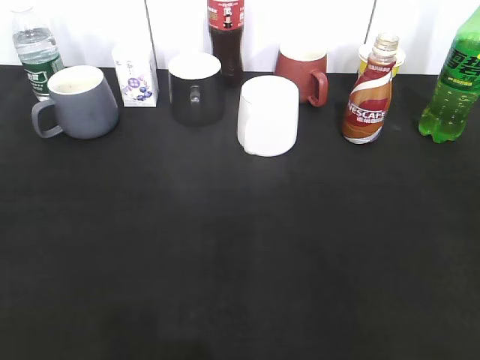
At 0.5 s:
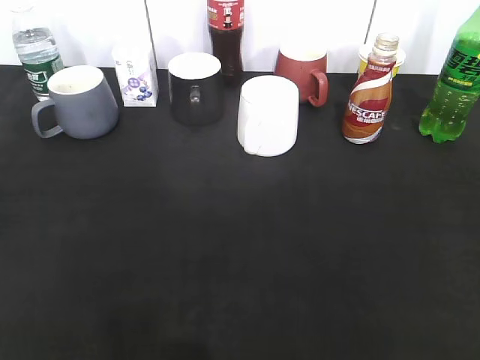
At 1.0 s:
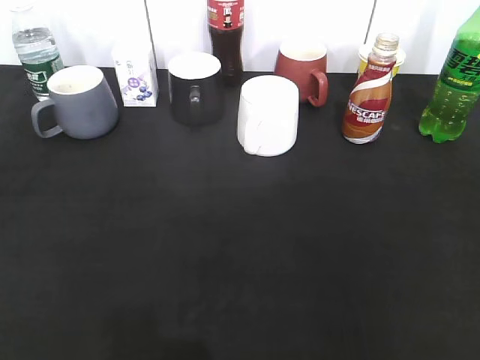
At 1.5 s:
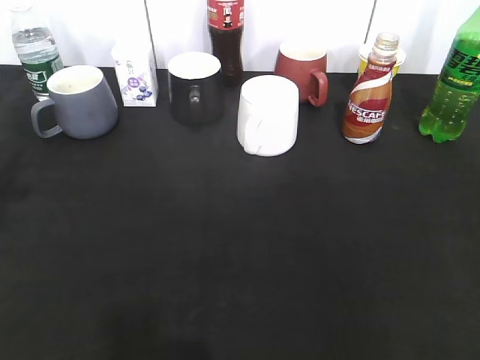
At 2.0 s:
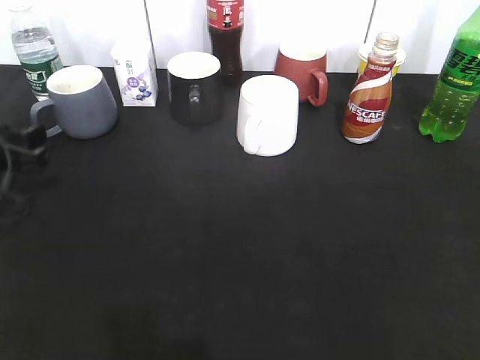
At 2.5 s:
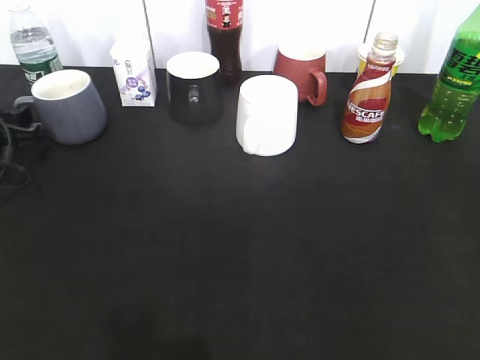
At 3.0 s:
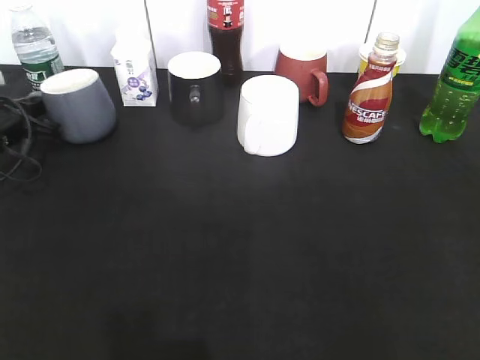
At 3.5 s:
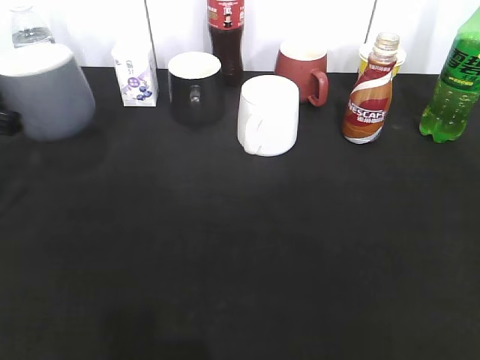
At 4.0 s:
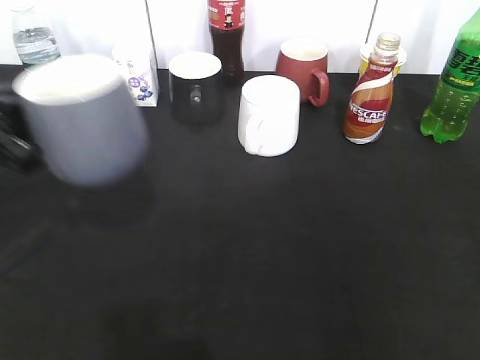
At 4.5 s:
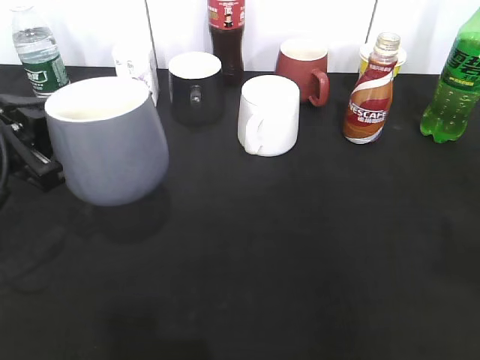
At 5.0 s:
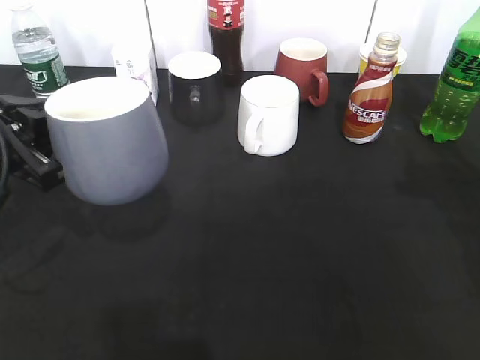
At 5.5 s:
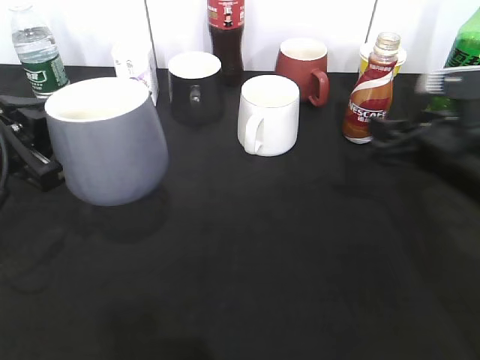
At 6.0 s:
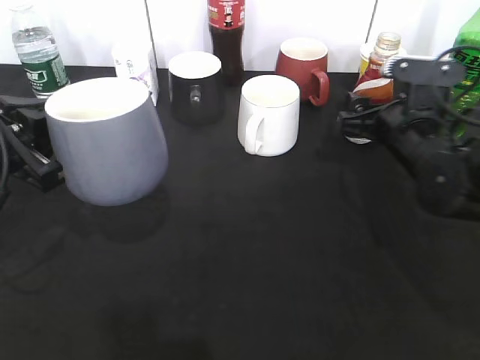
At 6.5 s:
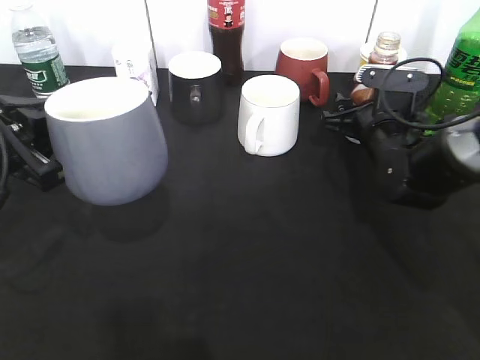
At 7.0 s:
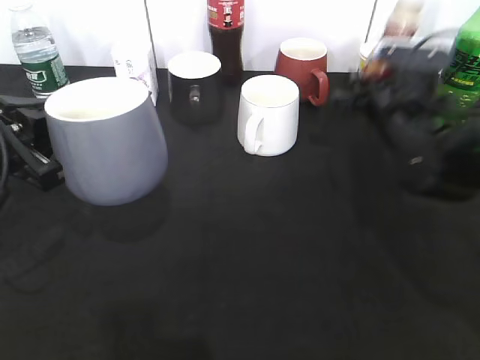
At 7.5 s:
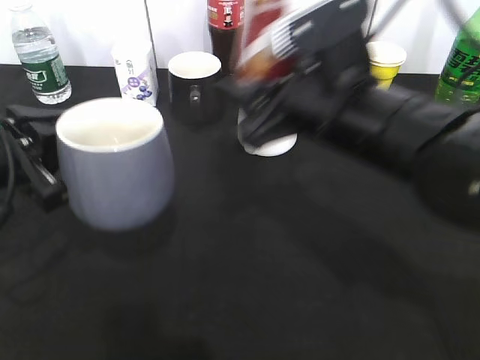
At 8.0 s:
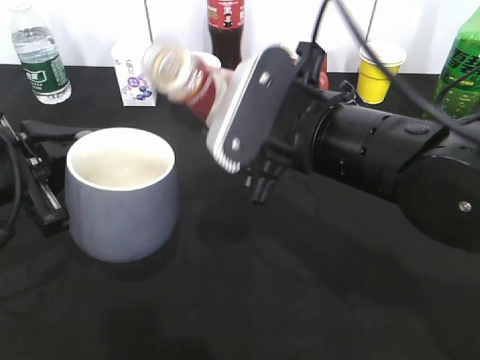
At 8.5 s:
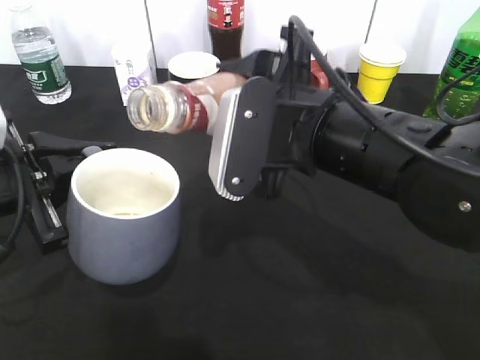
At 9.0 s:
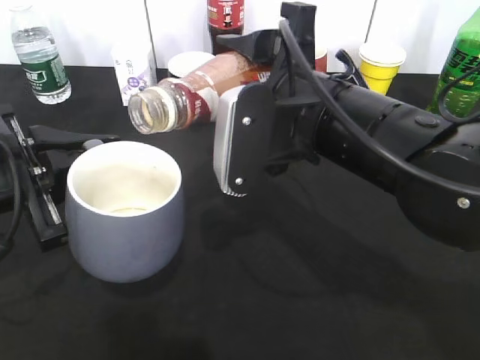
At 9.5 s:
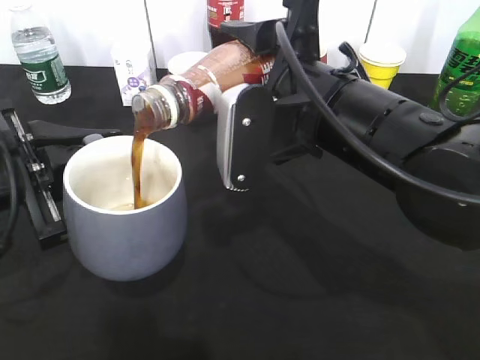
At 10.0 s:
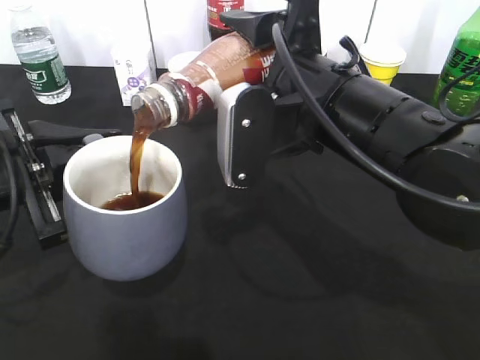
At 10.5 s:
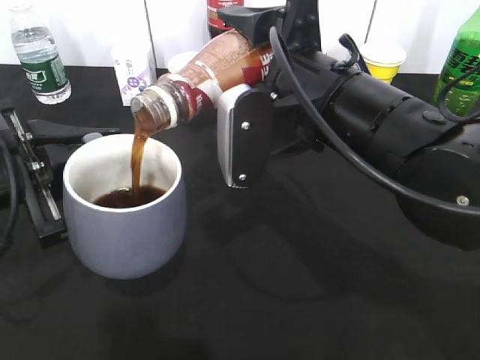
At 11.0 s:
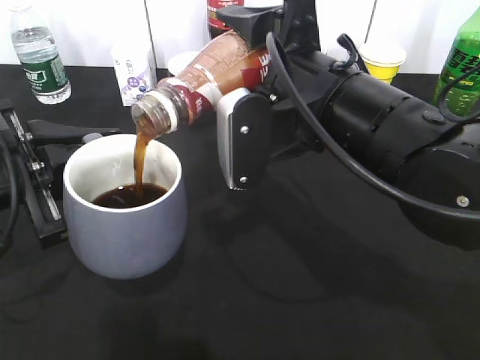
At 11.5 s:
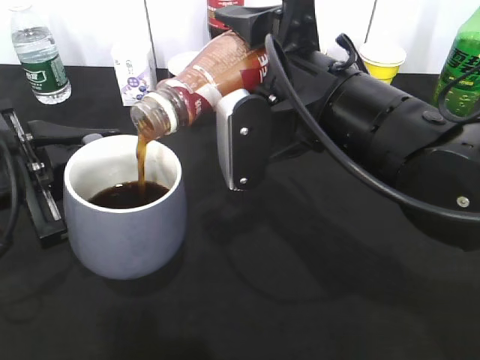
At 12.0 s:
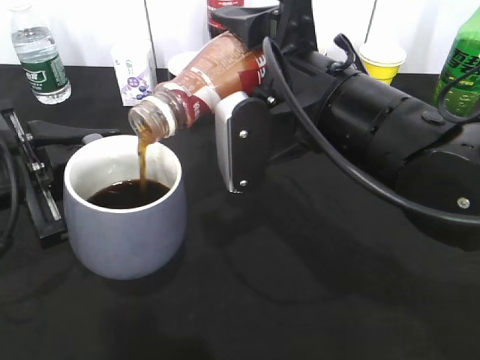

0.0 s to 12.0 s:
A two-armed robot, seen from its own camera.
Step, 0.0 to 2.5 s: Grasp the grey cup with left gripper.
Step, 3.5 to 4.5 s: Lift the grey cup with left gripper.
Step, 5.0 to 6.5 s: Grasp the bottle with coffee with right gripper.
0.0 to 2.0 s: The left gripper moves forward and downward, approximately 35 cm.
2.0 to 4.0 s: The left gripper moves upward, backward and to the right, some 15 cm, and closes up.
4.0 to 6.0 s: The right gripper travels forward and downward by some 35 cm, and opens.
6.0 to 8.0 s: The right gripper goes roughly 20 cm to the left, backward and upward, and closes its fingers.
10.0 to 12.0 s: The grippers make only small movements.

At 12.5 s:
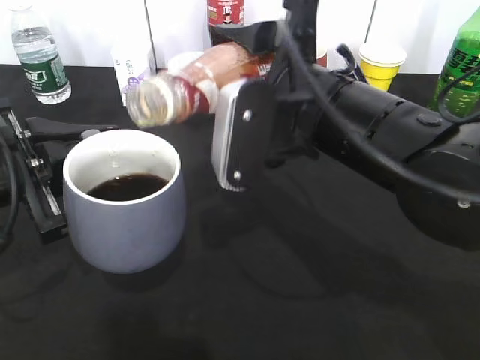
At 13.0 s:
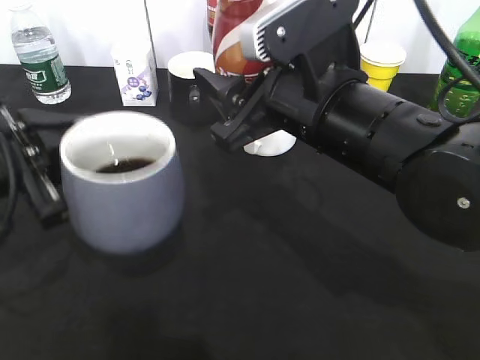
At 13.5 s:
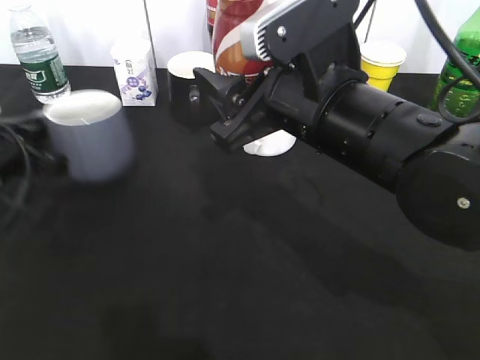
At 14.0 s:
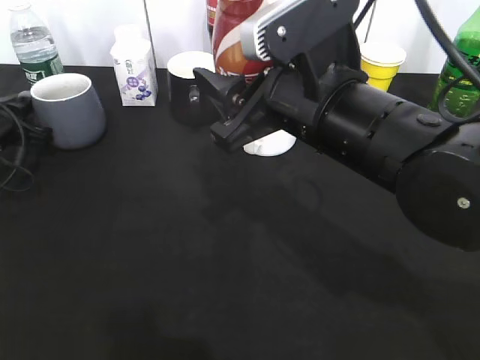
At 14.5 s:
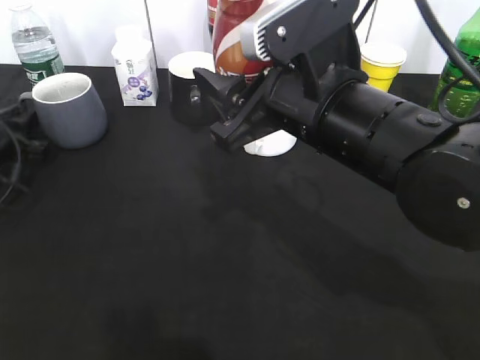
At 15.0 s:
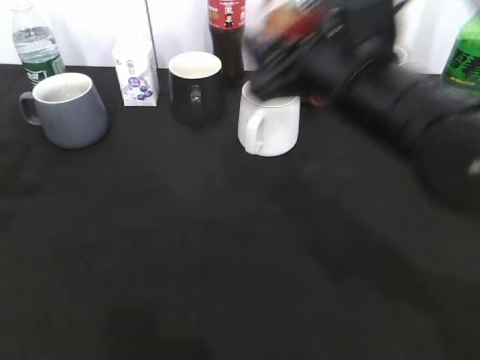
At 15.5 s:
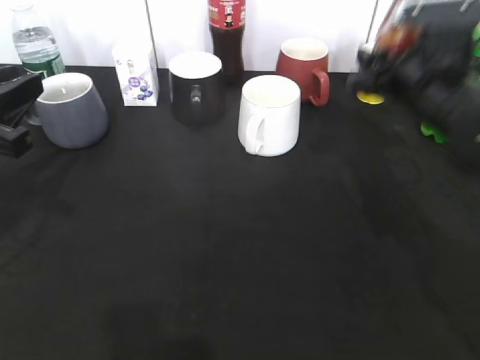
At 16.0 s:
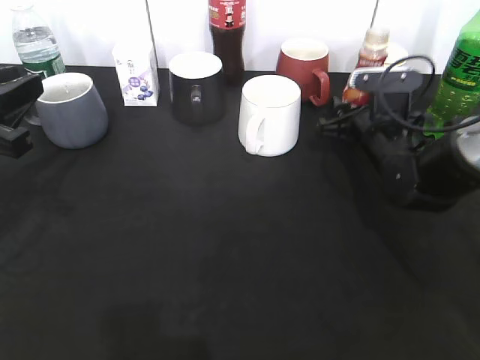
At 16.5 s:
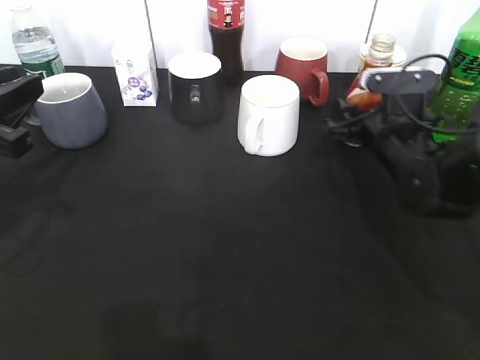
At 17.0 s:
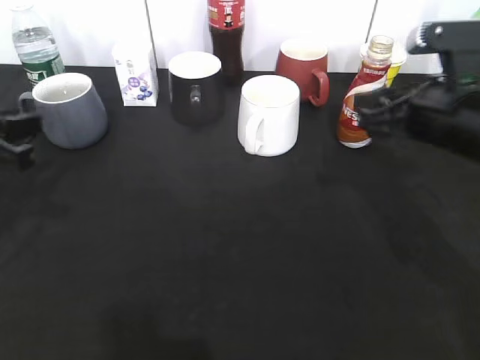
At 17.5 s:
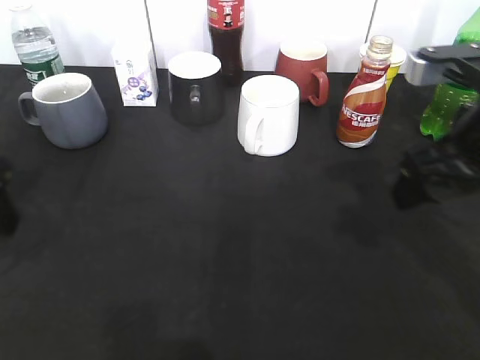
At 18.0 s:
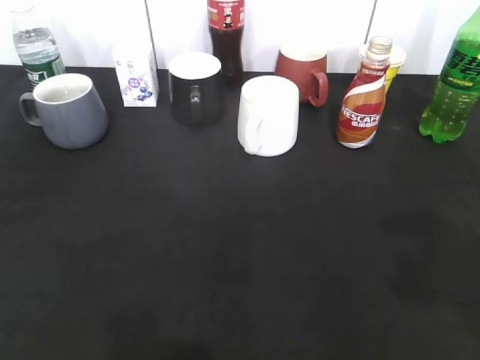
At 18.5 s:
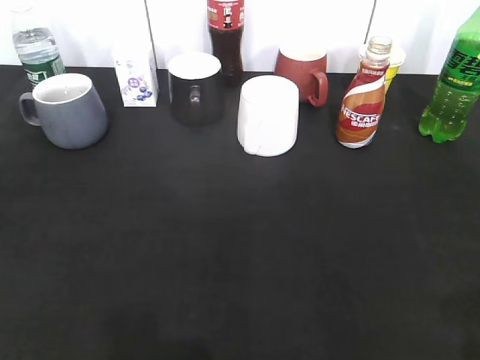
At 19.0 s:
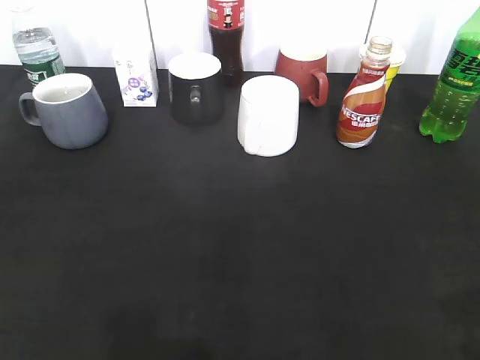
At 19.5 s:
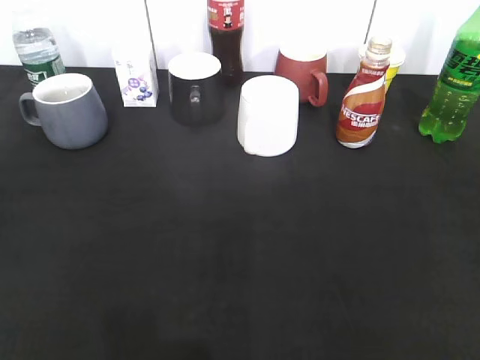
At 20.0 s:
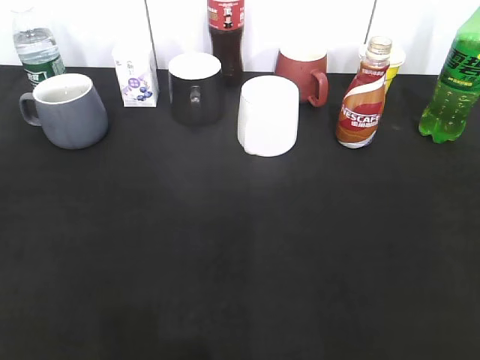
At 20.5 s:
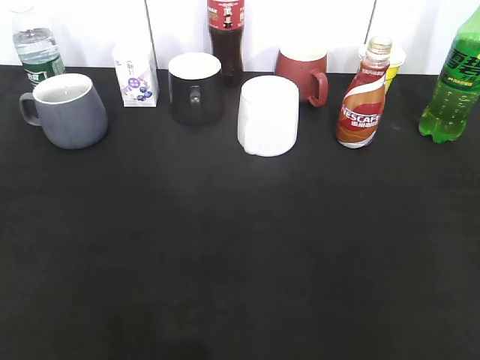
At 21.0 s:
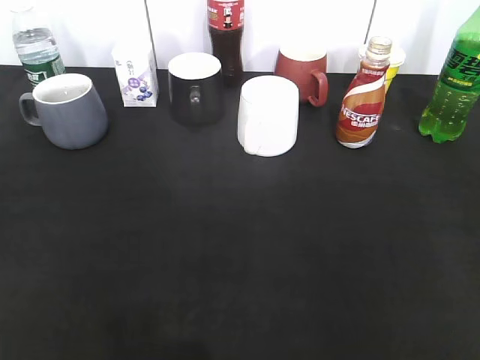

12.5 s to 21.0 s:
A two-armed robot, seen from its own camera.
Step, 13.0 to 14.5 s: Place the grey cup on the table with left gripper.
Step, 15.0 to 17.0 s: Place the coffee bottle on the table with right gripper.
12.5 to 14.5 s: The left gripper goes approximately 20 cm forward, downward and to the left, and opens up.
14.5 to 16.5 s: The right gripper heads downward, to the right and forward, covering roughly 20 cm, and opens up. Meanwhile the left gripper heads backward, upward and to the right, covering roughly 20 cm.
16.5 to 19.0 s: The right gripper heads backward and upward, covering approximately 35 cm; the left gripper travels backward by roughly 20 cm.

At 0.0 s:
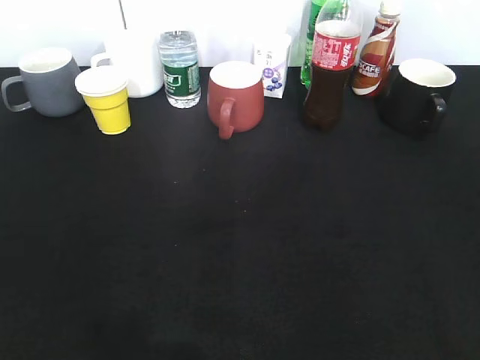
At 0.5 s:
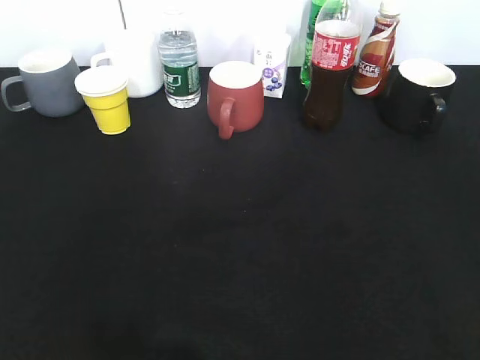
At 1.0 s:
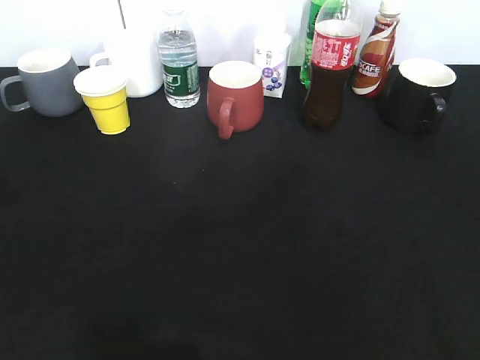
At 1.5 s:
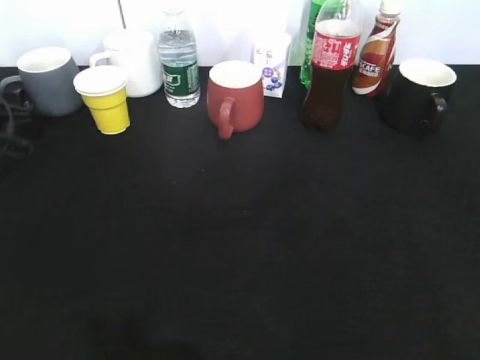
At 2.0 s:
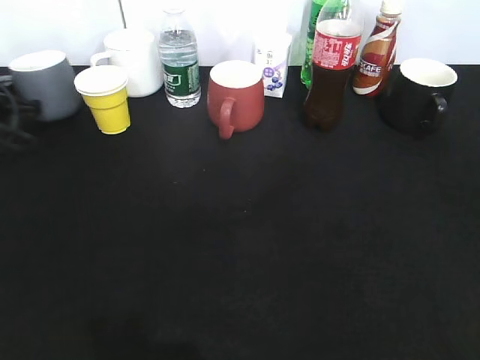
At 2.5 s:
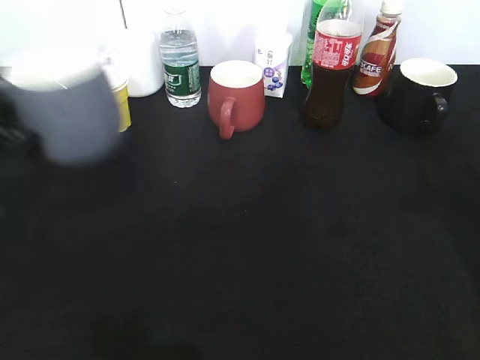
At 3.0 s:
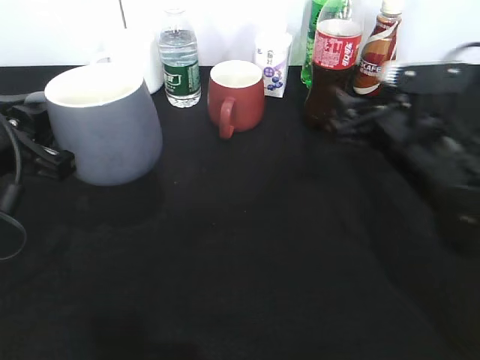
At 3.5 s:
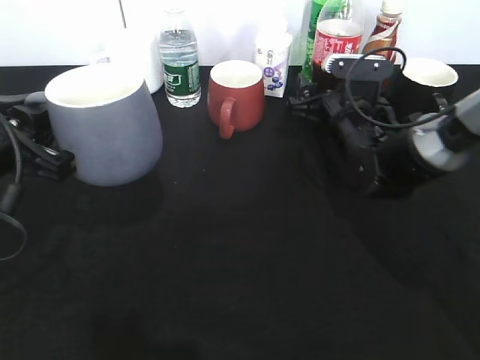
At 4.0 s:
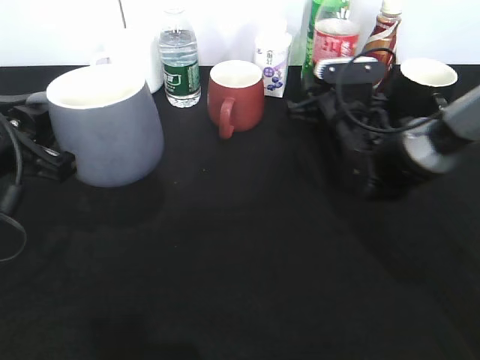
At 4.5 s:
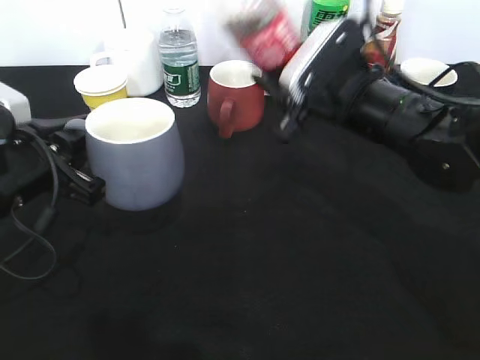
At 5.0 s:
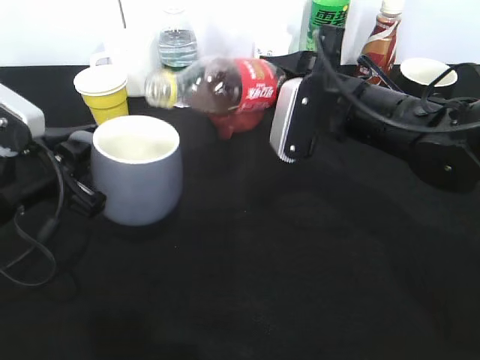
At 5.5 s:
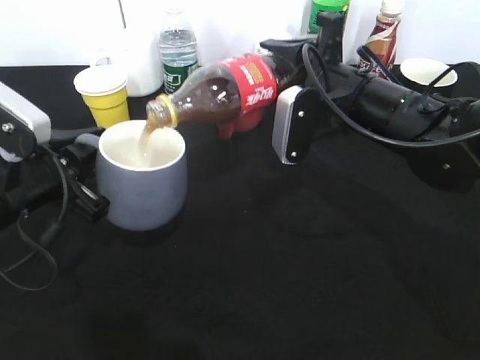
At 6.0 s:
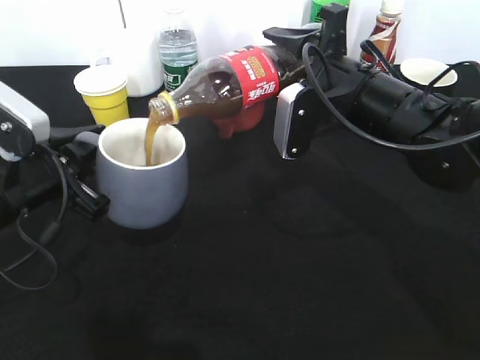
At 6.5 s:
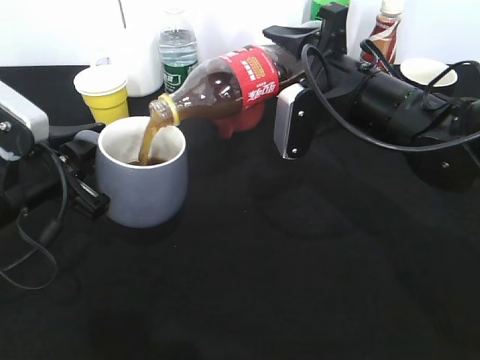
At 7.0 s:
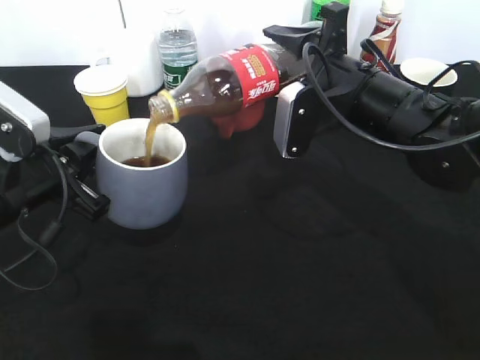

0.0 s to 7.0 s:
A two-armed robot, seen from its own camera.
Step, 0.0 to 1.5 s: Grasp the grey cup with left gripper.
Step, 2.0 to 2.5 s: Lift the grey cup with left gripper.
Step, 3.0 to 3.5 s: Grasp the bottle with cola with right gripper.
Step, 4.0 to 6.5 s: Pour the cola from bottle to cup with right gripper.
0.0 to 2.0 s: The left gripper heads forward, covering about 40 cm, and closes its fingers.
2.0 to 3.5 s: The right gripper travels forward and downward by about 40 cm. Meanwhile the left gripper heads backward, to the right and upward, covering approximately 25 cm.
3.5 to 5.0 s: The right gripper heads upward and backward, covering approximately 10 cm, and closes up.
